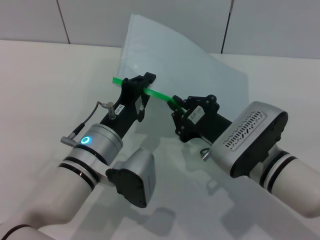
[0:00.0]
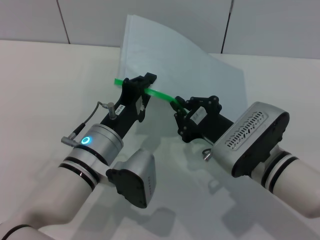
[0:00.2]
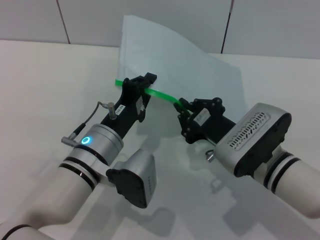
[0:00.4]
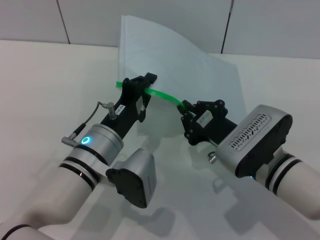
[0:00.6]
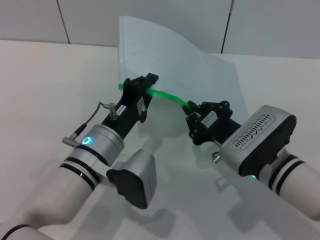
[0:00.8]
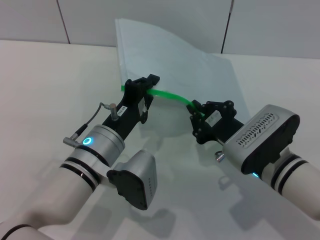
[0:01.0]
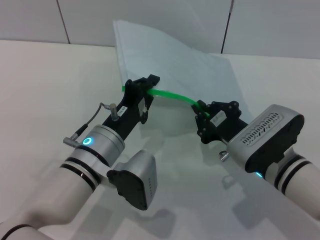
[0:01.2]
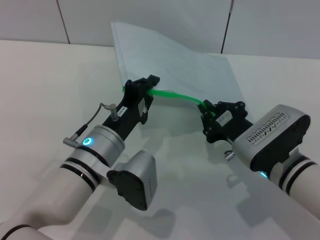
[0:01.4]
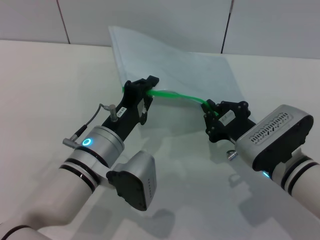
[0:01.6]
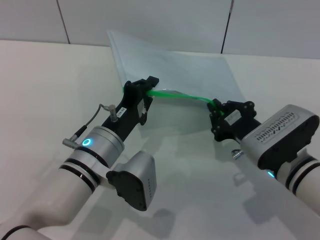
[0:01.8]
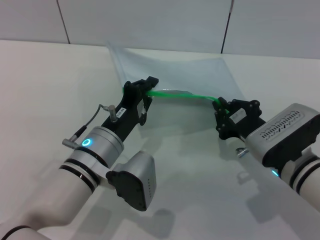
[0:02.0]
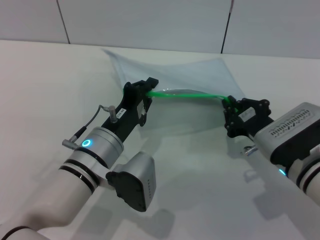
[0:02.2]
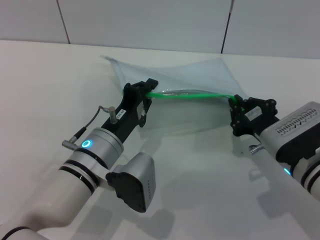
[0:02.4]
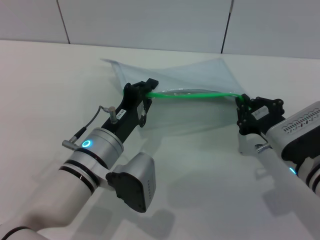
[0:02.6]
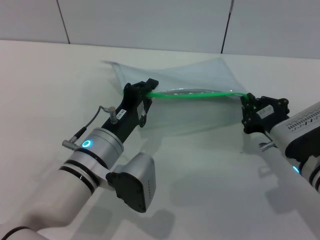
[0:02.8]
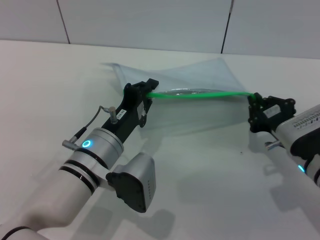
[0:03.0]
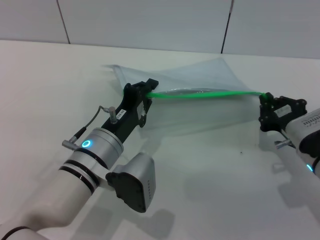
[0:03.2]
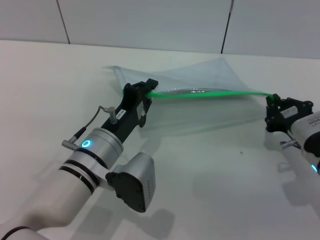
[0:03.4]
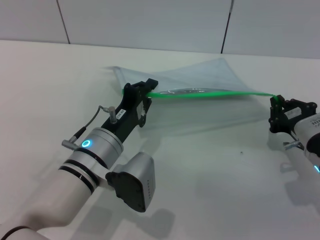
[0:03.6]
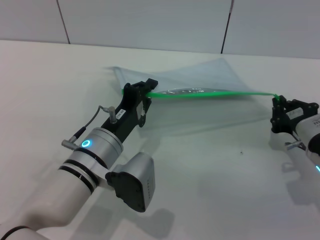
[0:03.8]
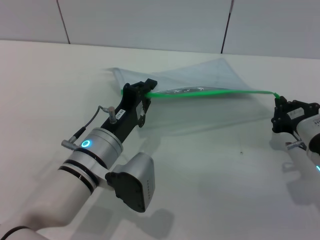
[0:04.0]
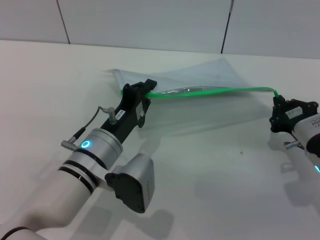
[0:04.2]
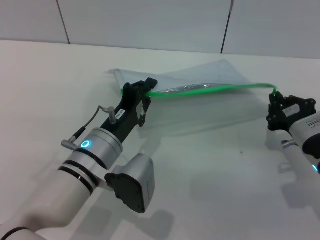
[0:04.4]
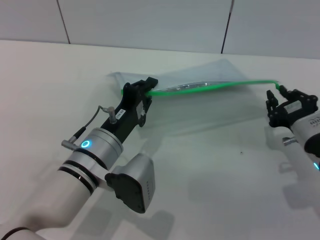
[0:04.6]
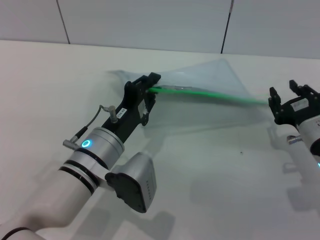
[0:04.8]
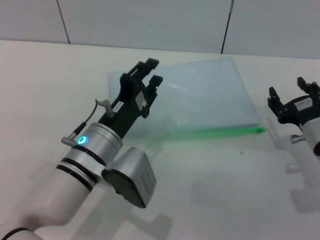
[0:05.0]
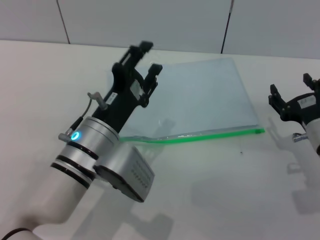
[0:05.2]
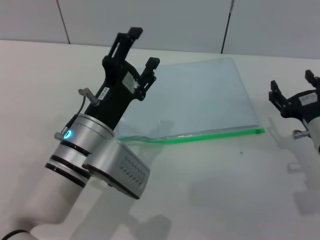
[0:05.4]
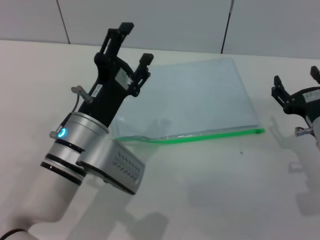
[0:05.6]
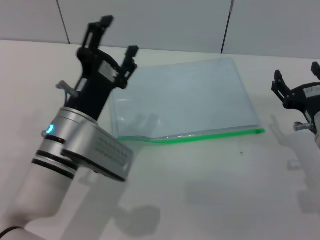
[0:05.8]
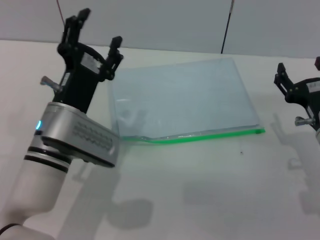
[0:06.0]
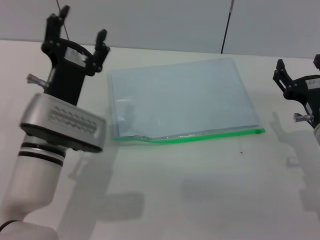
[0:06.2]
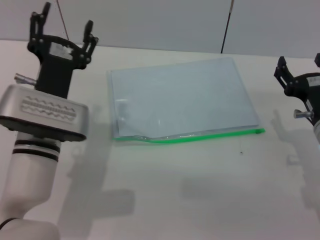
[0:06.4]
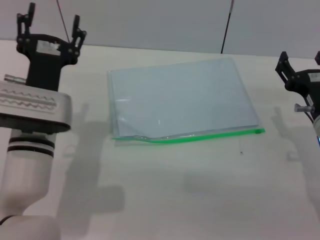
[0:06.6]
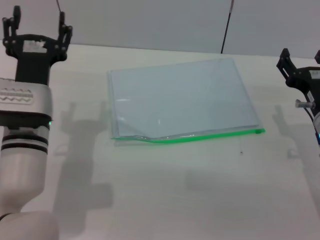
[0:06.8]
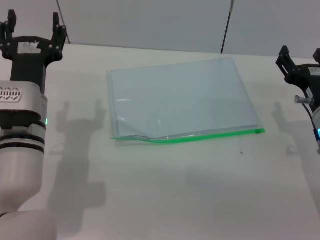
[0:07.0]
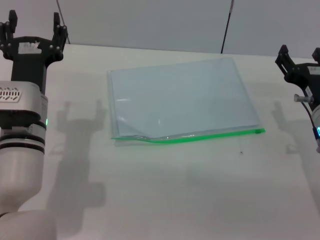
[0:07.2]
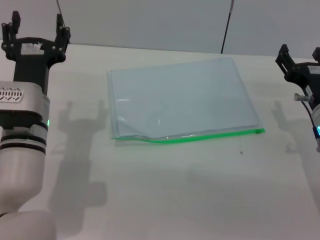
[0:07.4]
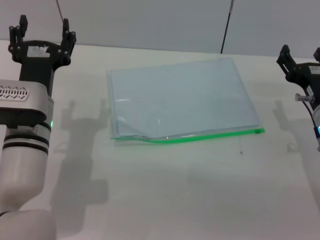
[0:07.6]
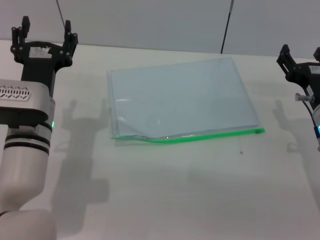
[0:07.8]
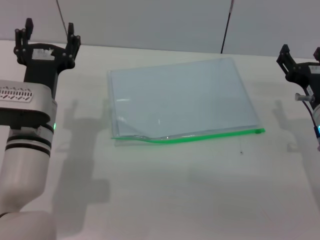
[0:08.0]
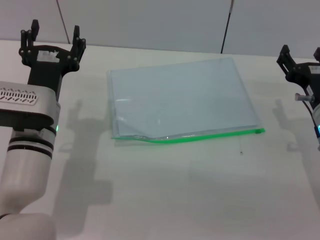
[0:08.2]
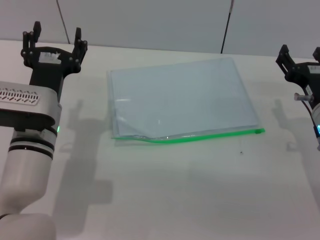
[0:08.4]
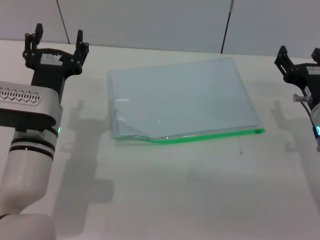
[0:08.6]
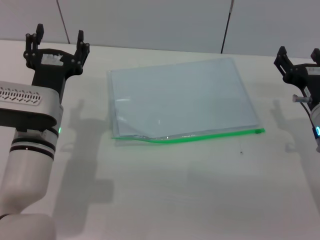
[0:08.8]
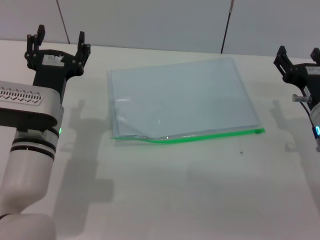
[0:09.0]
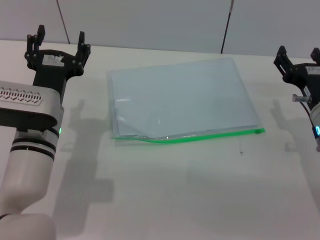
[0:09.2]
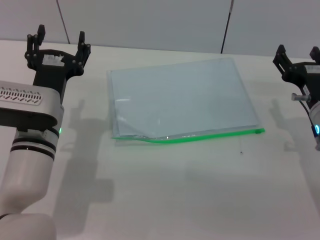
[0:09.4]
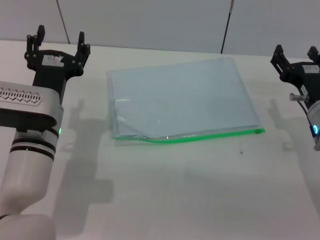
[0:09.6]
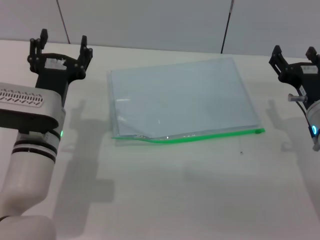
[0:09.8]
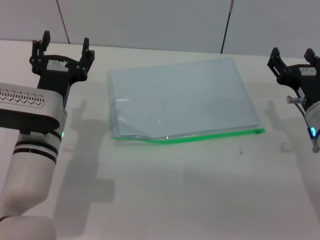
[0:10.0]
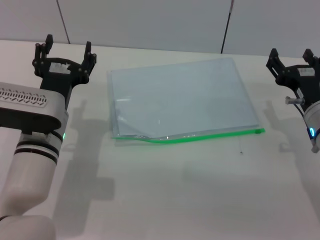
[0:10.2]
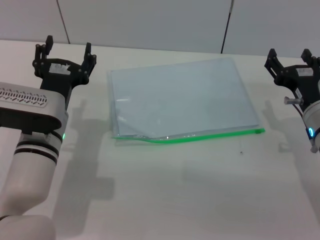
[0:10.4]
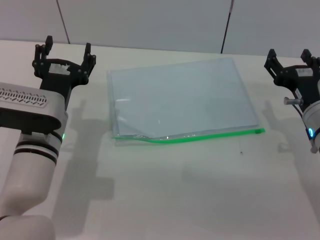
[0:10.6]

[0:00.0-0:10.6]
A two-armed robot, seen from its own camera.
Step, 0:00.0 to 0:05.0: Pulling up the zipper on the transparent plastic bag with the right gripper to close it.
Step, 0:05.2 to 0:07.2: Place the transparent plastic bag.
0:00.0 to 0:01.6: The grippers stay close to where they were, moving slightly.
0:01.6 to 0:03.0: The right gripper shifts roughly 5 cm to the right.
0:03.0 to 0:04.6: There are only small adjustments of the grippers.
0:04.6 to 0:06.0: The left gripper opens. Meanwhile the right gripper opens its fingers.
0:07.6 to 0:09.0: The grippers stay close to where they were, moving slightly.
0:09.0 to 0:10.6: Both grippers stay about where they are.

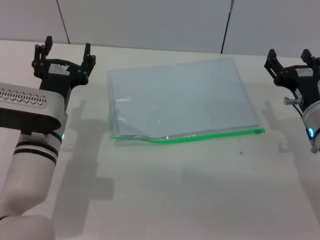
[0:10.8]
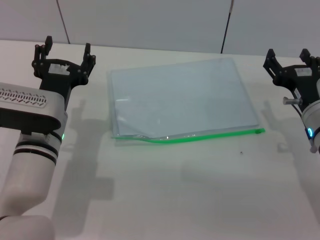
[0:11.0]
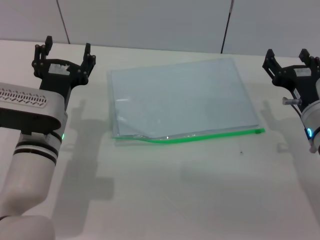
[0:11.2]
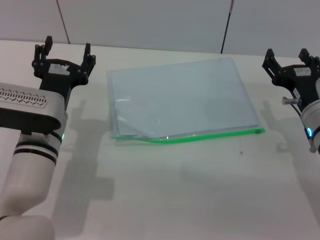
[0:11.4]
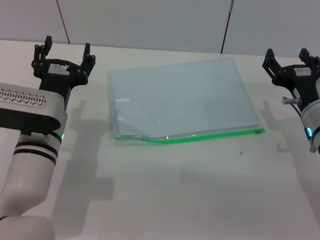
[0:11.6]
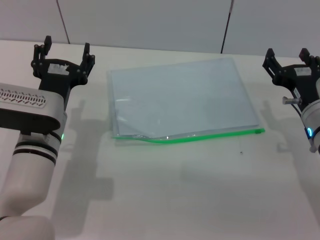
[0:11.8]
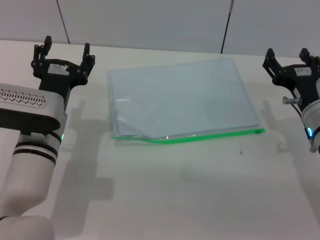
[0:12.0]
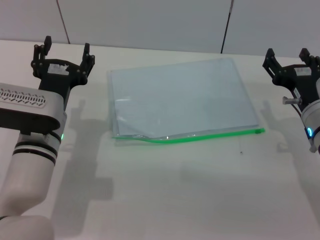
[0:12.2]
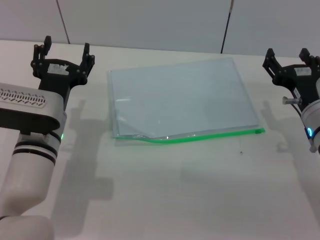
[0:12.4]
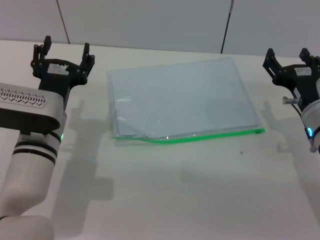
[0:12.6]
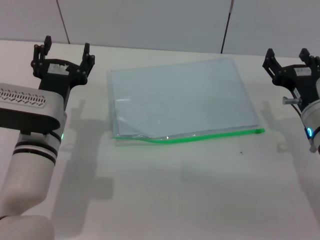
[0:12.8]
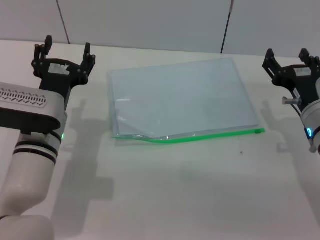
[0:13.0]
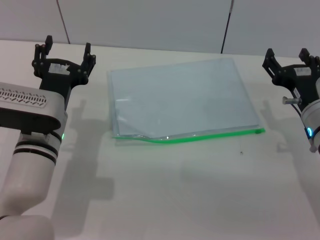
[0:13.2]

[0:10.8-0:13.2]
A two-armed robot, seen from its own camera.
0:10.8 to 0:13.2: Neither gripper changes place.
